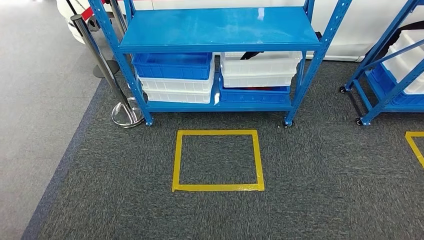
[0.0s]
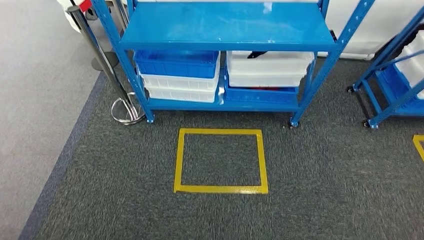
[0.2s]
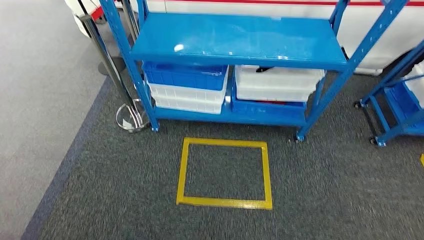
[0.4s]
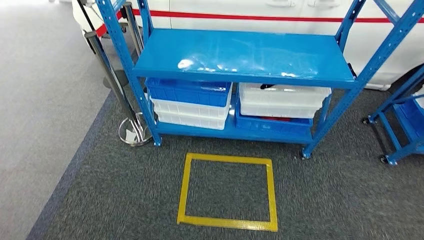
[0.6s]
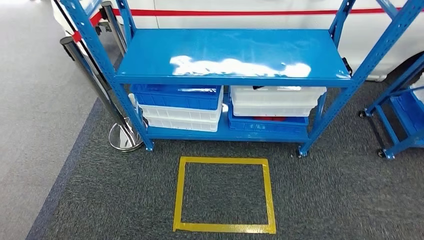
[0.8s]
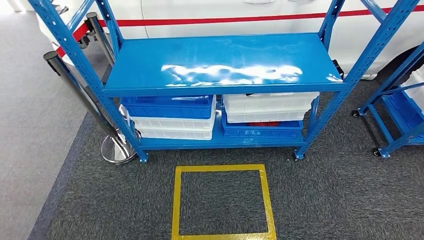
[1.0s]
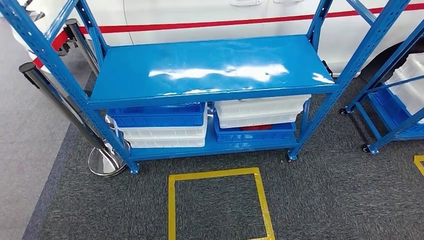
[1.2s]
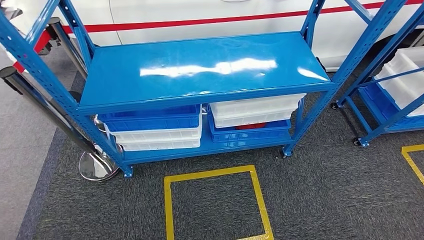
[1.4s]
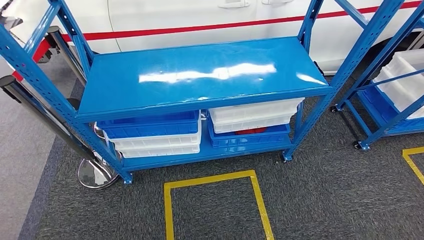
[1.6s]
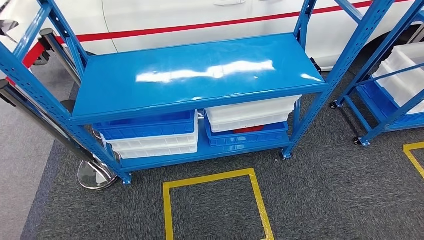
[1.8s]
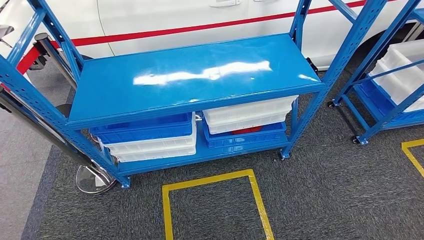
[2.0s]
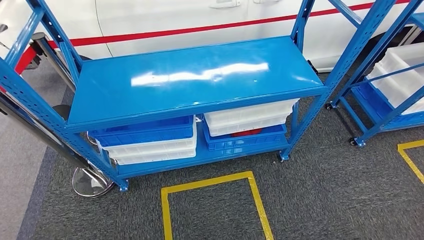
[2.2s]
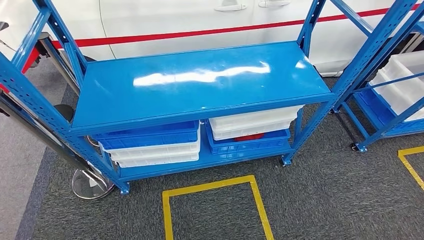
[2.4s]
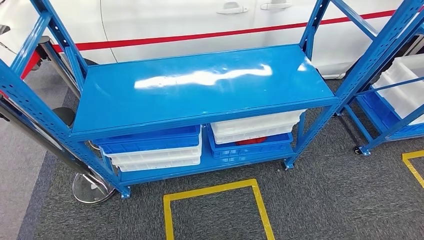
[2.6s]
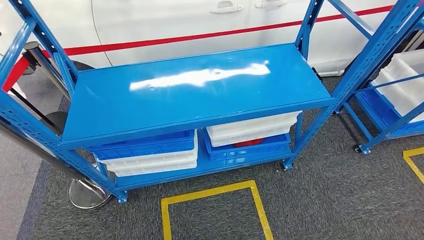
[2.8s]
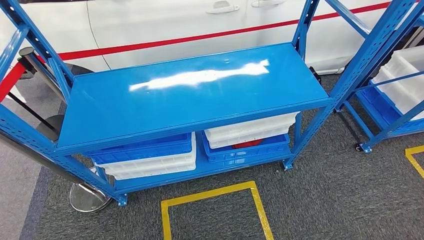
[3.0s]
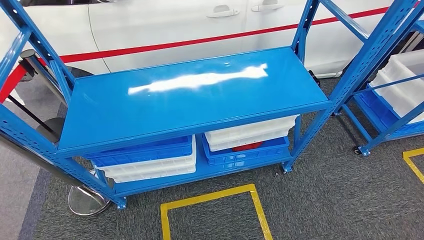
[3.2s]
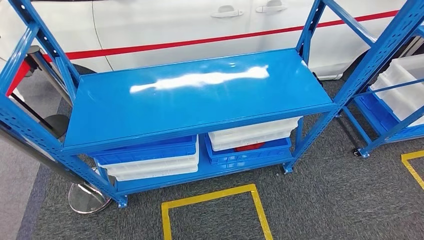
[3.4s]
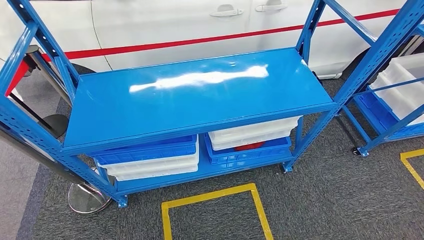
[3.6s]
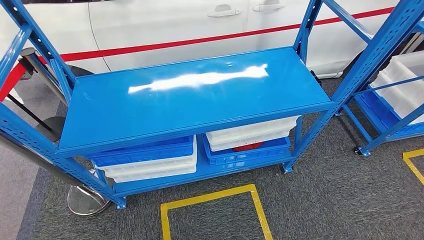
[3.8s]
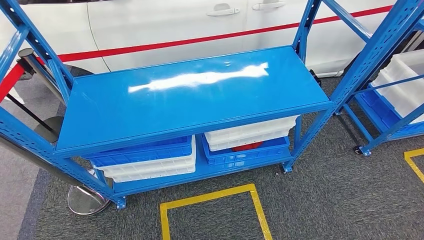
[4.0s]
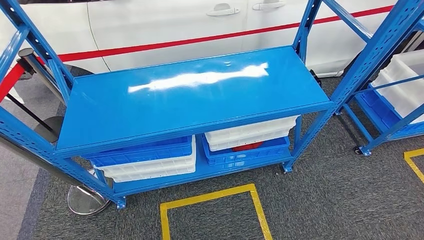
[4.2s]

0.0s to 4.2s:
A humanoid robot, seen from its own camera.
Step, 0.0s to 4.2s: Return to the initial position at the shelf.
